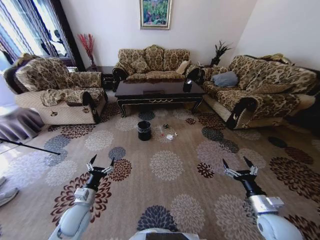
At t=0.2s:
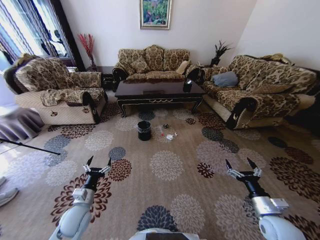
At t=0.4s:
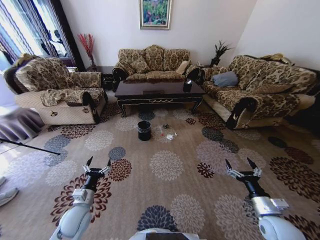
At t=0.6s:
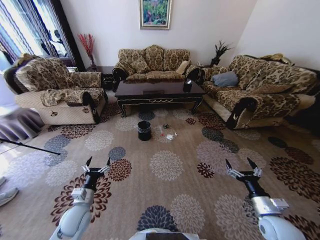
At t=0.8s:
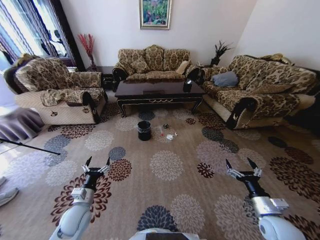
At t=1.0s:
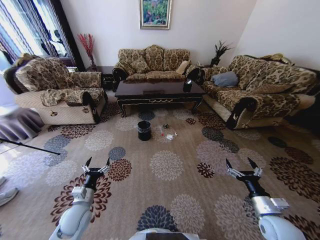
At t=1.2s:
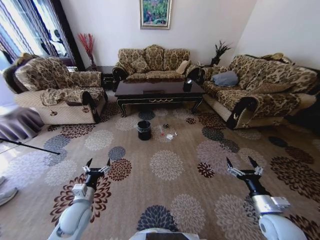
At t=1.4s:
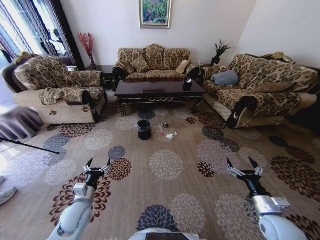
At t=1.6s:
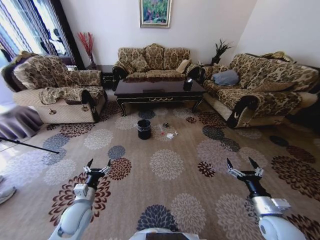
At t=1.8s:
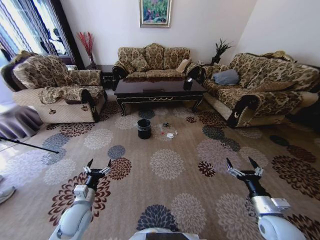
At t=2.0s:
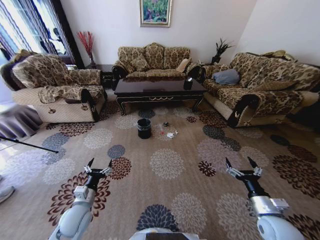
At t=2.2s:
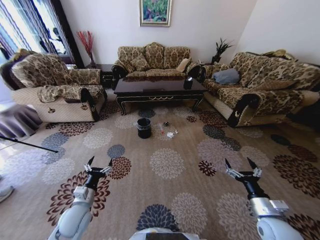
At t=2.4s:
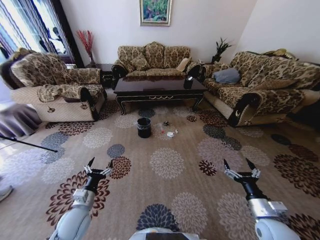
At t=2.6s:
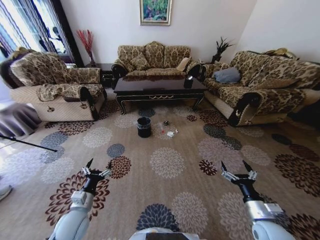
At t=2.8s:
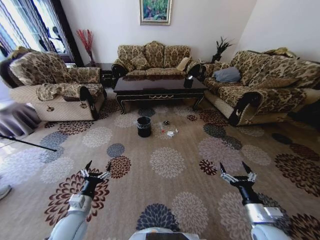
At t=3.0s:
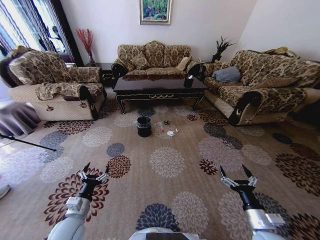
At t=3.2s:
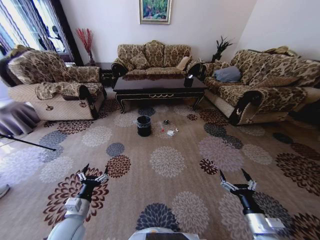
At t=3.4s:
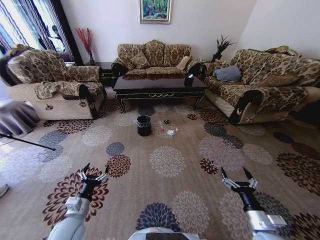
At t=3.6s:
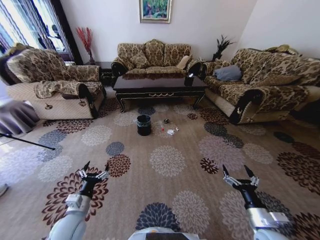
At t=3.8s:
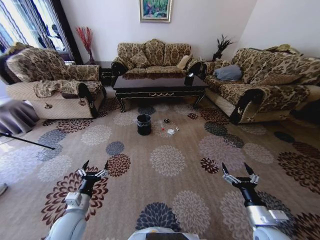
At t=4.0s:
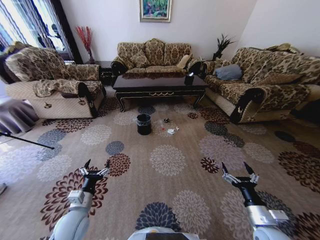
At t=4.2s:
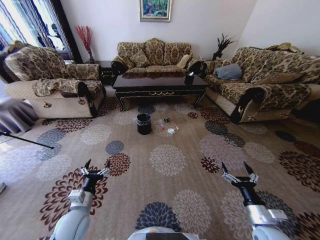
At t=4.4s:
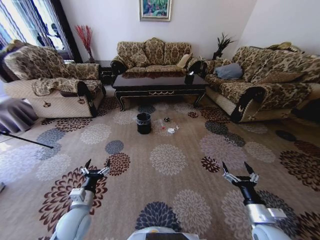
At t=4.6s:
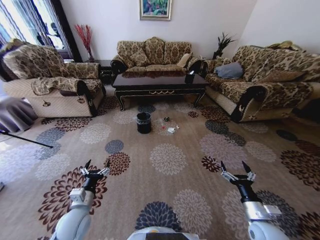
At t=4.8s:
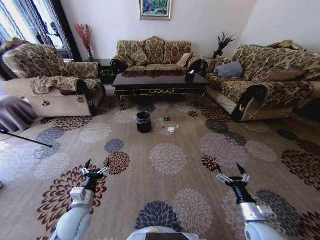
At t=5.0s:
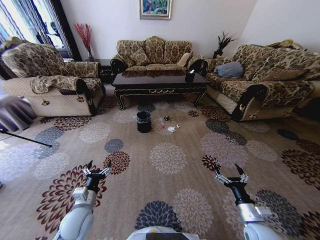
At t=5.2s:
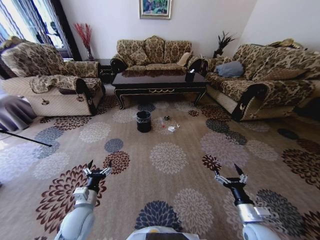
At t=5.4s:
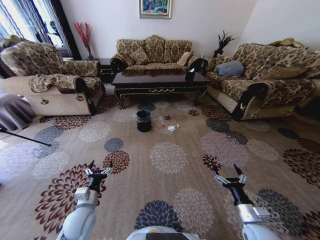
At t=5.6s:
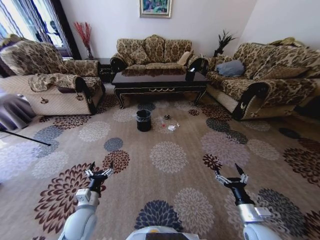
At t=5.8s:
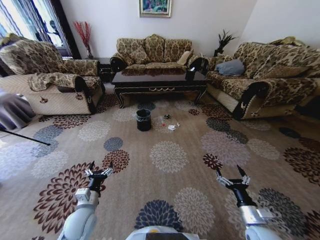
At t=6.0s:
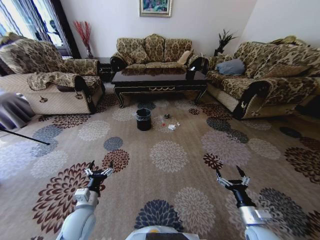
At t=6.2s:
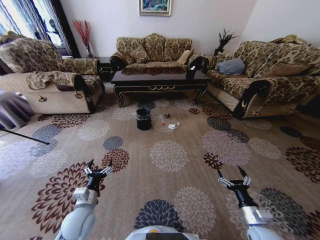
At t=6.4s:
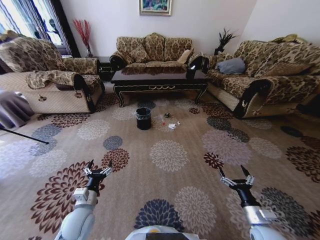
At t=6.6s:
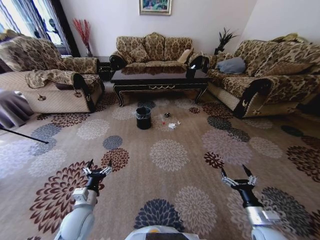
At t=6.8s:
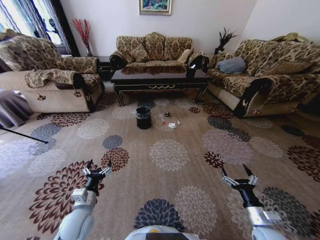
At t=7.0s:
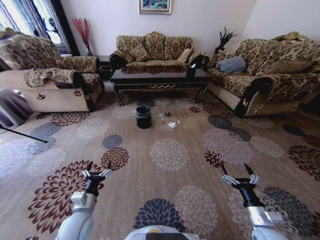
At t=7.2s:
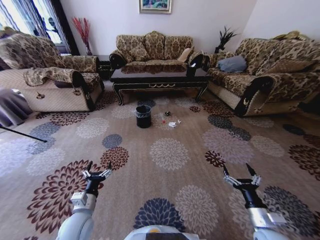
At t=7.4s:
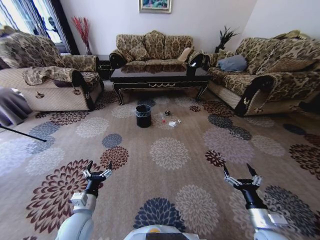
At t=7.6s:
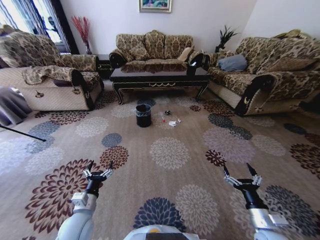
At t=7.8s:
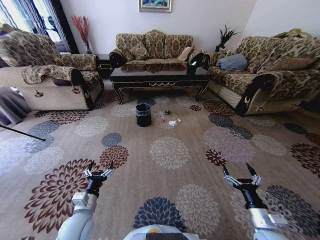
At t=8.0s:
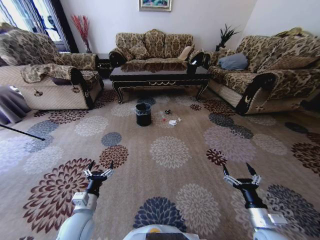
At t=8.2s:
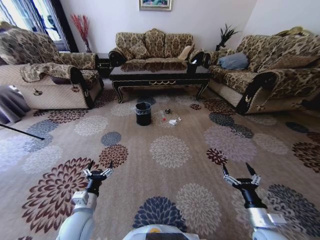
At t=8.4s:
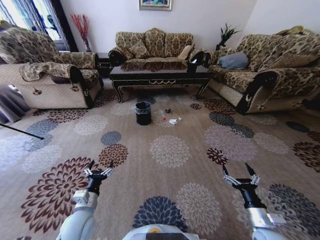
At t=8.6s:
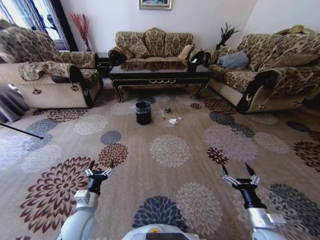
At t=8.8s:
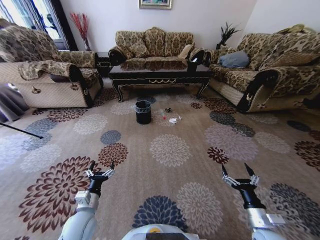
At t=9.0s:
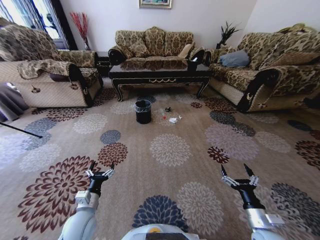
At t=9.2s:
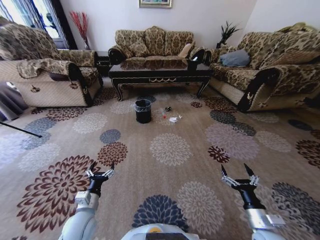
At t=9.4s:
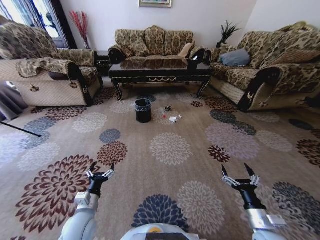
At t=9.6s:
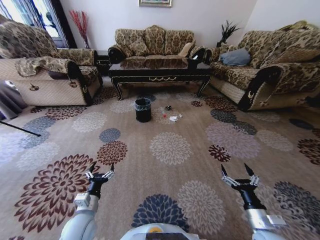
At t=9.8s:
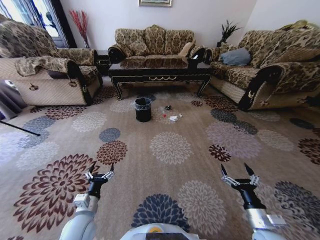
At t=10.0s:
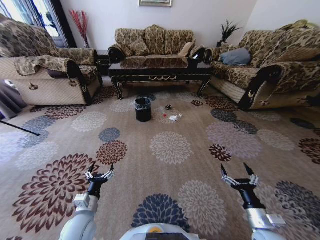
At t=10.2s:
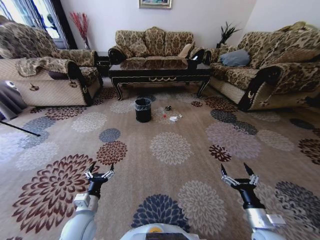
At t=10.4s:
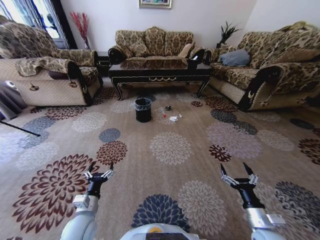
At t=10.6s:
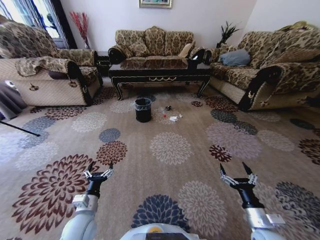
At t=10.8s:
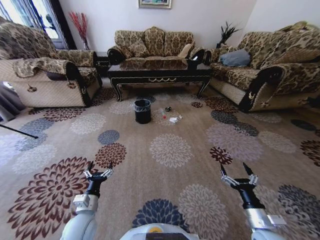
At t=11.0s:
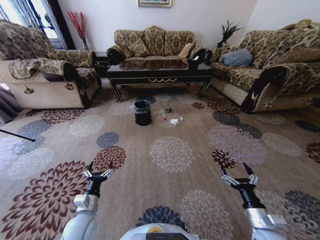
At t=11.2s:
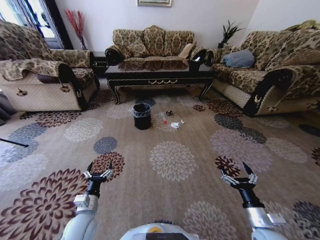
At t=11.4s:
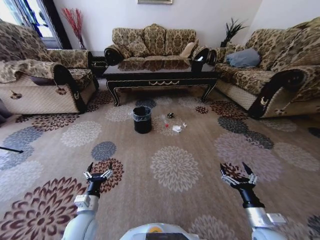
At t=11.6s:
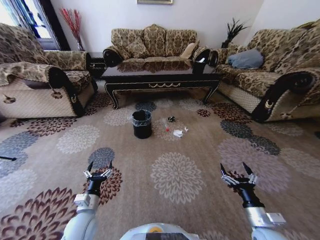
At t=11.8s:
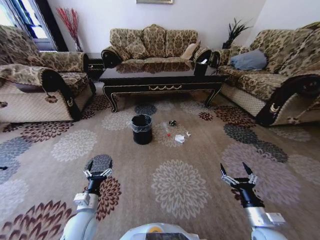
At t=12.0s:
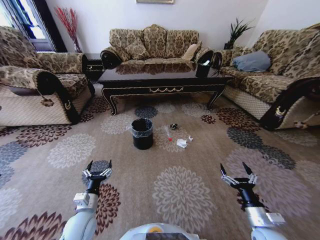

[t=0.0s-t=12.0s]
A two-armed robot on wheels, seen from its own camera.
Task of the whole recording: Move to the front of the table and pick up the trash from the floor, then place it into the trash bin.
t=1.6s to t=3.0s: The right gripper ends up about 5 cm from where it was.
t=9.0s to t=10.4s: Neither gripper changes place.

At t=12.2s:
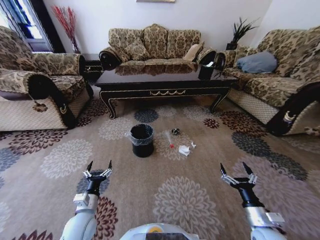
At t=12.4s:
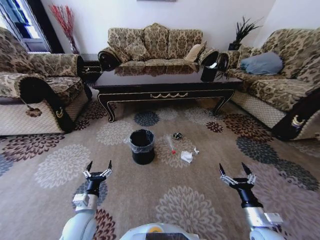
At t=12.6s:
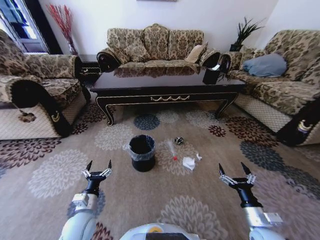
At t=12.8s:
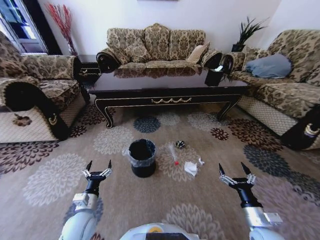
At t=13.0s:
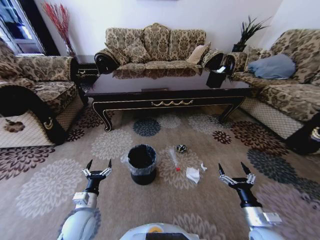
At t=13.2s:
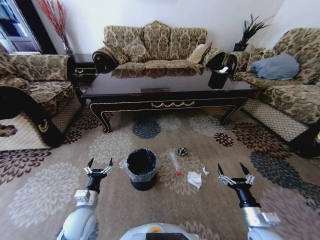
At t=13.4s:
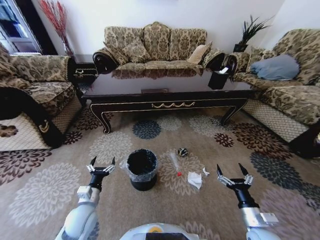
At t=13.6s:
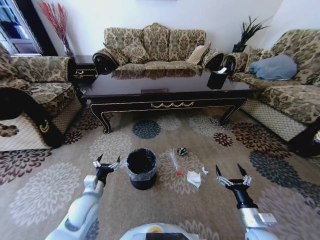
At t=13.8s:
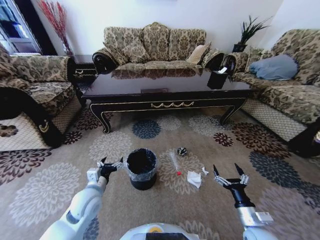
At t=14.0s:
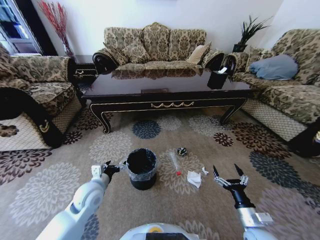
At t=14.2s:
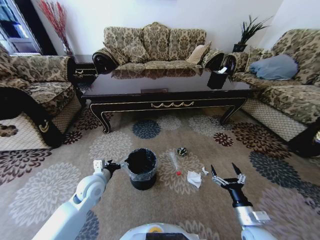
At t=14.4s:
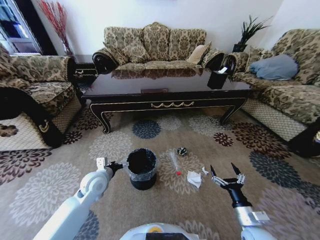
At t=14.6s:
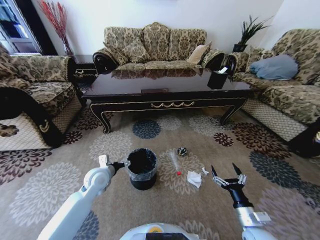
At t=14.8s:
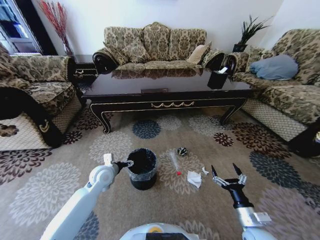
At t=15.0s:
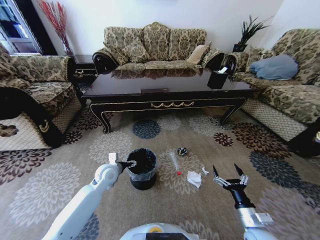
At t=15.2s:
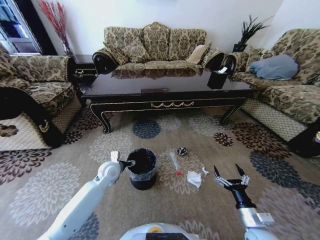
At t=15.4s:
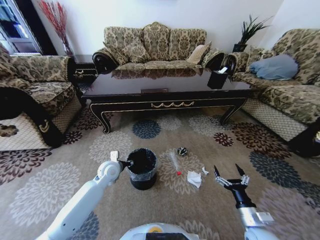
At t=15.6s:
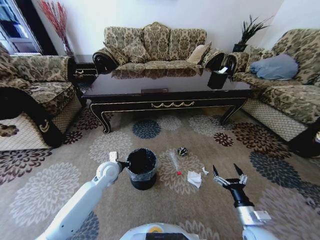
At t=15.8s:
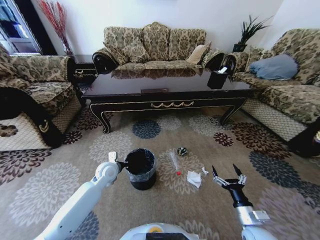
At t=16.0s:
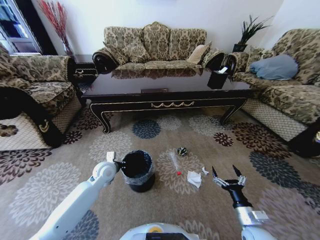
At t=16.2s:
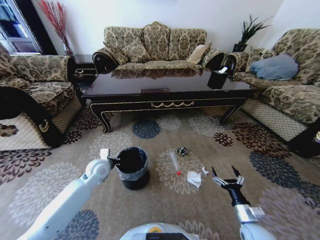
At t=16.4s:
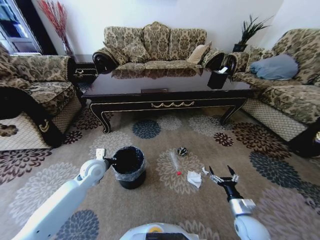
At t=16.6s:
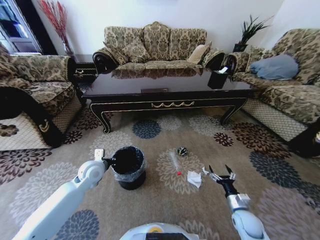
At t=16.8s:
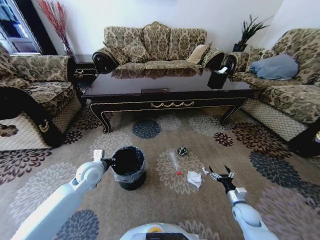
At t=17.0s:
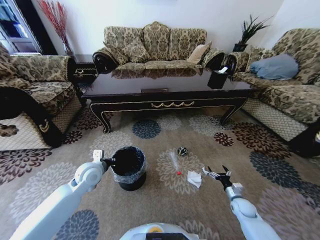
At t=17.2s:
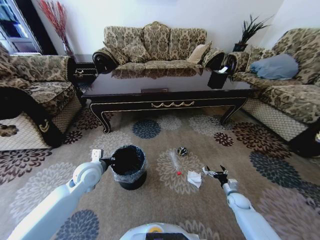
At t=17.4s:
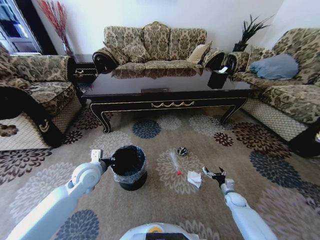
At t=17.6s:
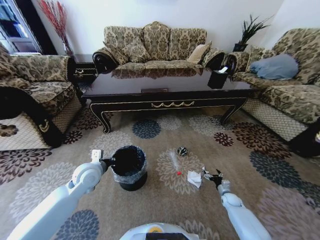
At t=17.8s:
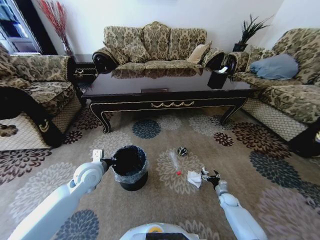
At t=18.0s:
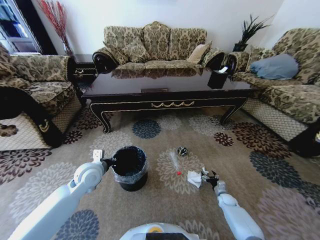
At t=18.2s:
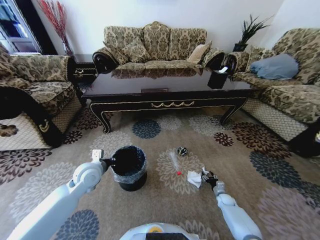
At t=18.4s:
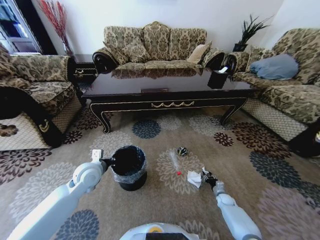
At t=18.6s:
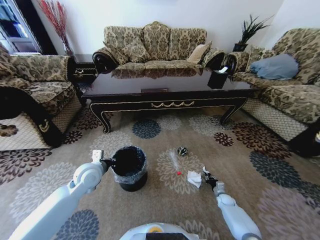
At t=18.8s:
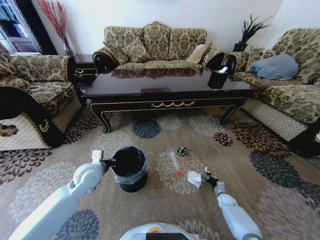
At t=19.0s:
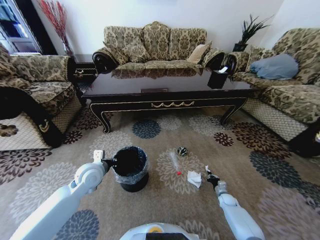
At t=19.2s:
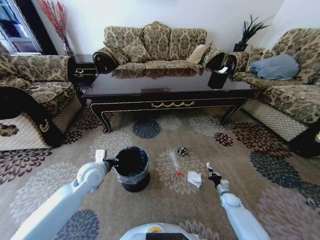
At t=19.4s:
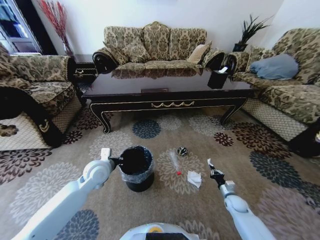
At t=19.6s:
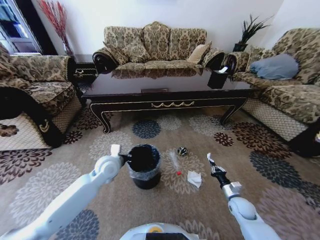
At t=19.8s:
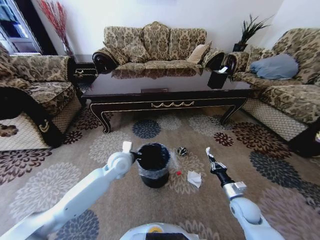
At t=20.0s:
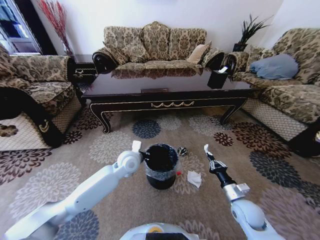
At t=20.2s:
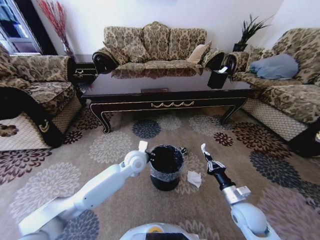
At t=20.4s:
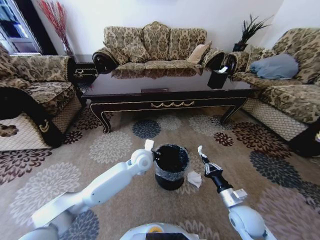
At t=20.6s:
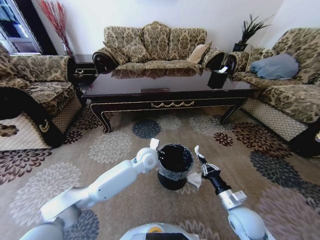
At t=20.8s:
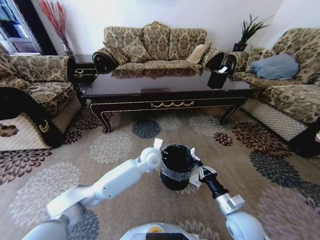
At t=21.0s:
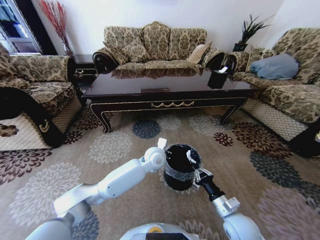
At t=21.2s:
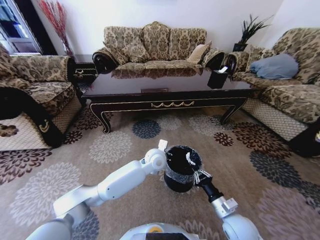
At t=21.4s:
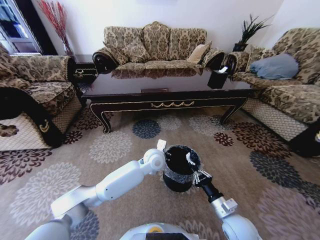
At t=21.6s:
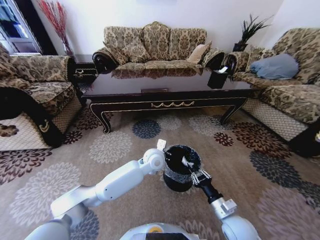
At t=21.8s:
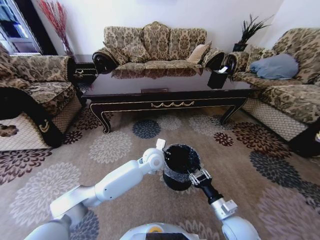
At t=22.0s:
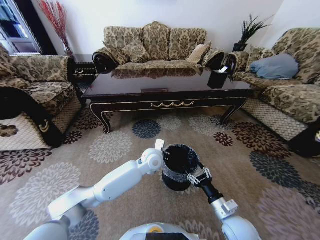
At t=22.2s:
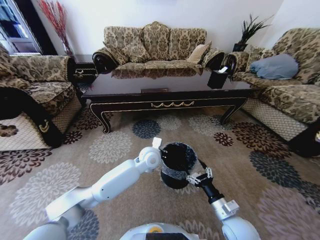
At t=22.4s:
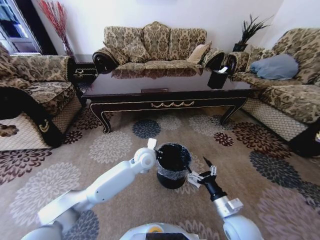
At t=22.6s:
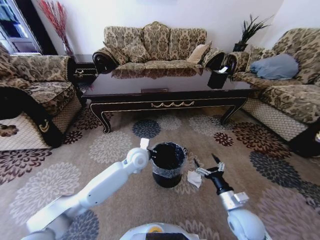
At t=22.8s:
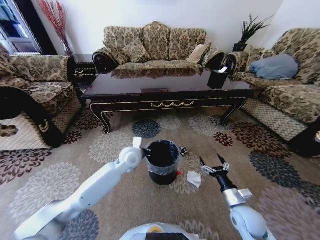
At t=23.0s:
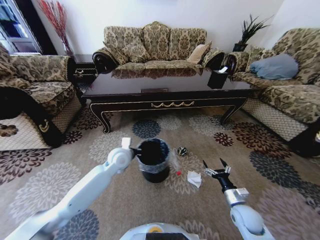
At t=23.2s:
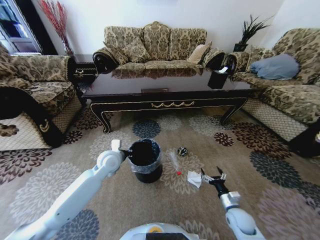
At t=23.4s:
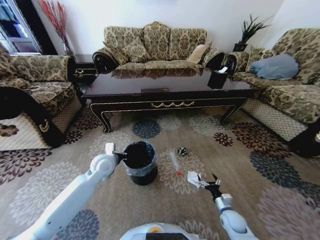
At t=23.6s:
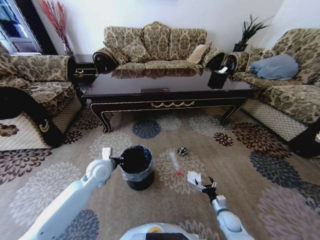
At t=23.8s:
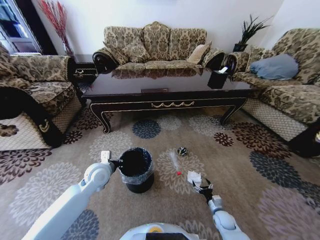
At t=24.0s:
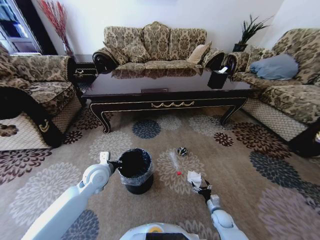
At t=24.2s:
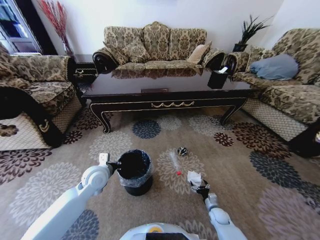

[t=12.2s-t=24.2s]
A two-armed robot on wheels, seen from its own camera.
Task of the whole recording: Move to the front of the table and pick up the trash from the floor, then place it into the trash bin.
t=12.2s to t=13.8s: The left gripper heads upward and forward, covering approximately 10 cm.
t=13.8s to t=15.2s: The left gripper goes about 15 cm forward.
t=15.2s to t=16.6s: The left gripper shifts roughly 5 cm to the left, and closes up. Meanwhile the right gripper heads downward and forward, covering about 10 cm.
t=16.6s to t=18.2s: The right gripper shifts roughly 20 cm downward and forward.
t=18.2s to t=19.8s: The left gripper shifts approximately 10 cm to the right and forward. The right gripper heads upward, covering approximately 20 cm, and closes its fingers.
t=19.8s to t=21.2s: The left gripper shifts some 15 cm to the right; the right gripper travels to the left and backward by some 10 cm.
t=21.2s to t=22.6s: The left gripper moves to the left, roughly 10 cm, while the right gripper opens.
t=22.6s to t=24.2s: The left gripper travels to the left and backward by approximately 20 cm. The right gripper moves downward, roughly 25 cm.
